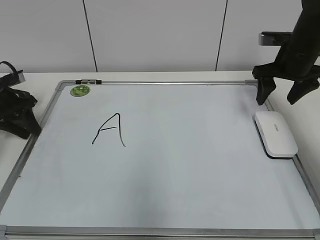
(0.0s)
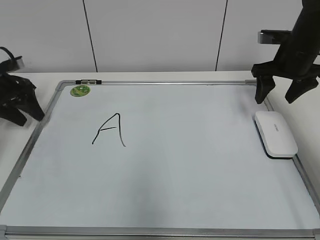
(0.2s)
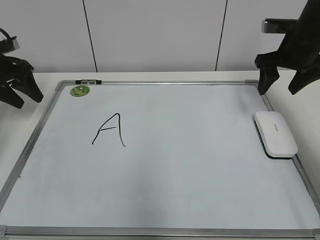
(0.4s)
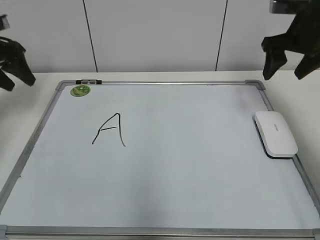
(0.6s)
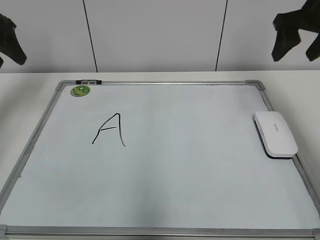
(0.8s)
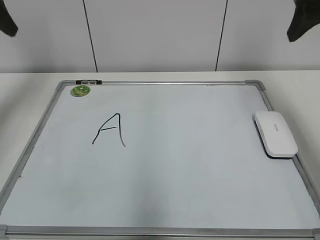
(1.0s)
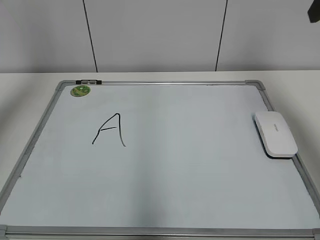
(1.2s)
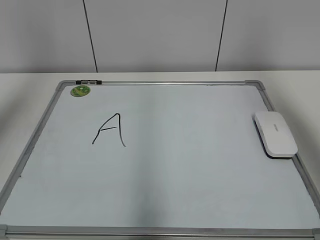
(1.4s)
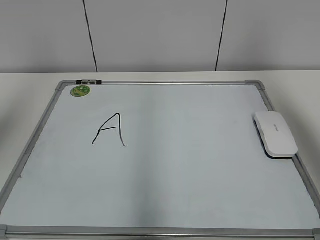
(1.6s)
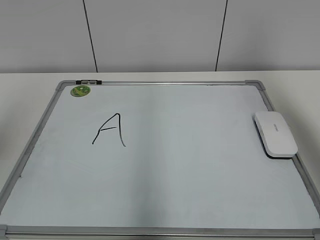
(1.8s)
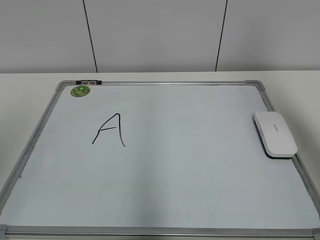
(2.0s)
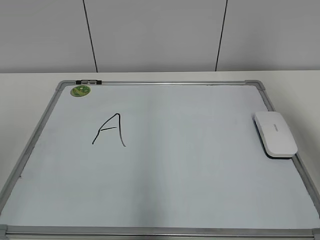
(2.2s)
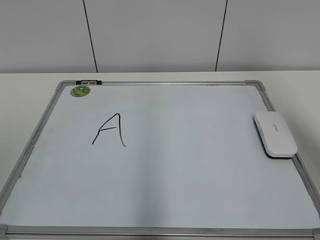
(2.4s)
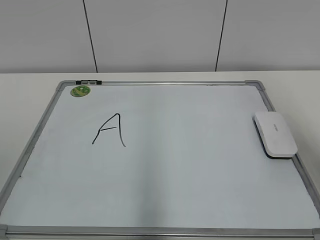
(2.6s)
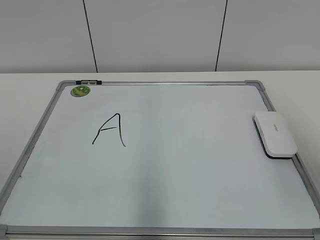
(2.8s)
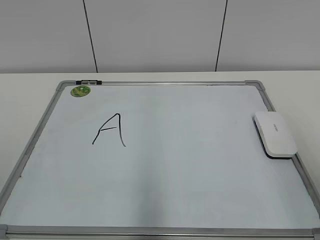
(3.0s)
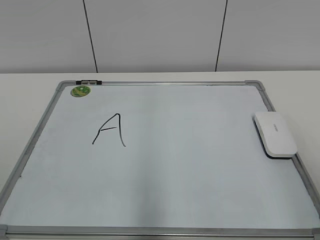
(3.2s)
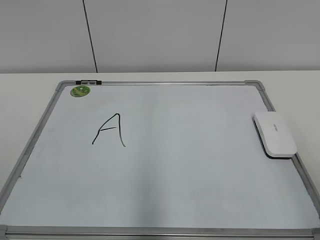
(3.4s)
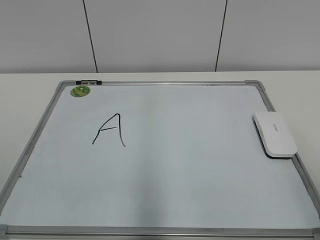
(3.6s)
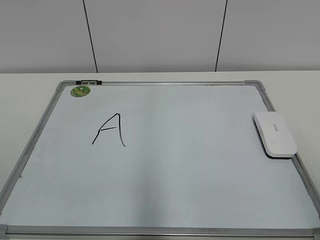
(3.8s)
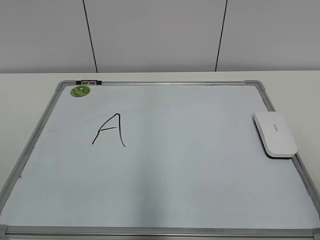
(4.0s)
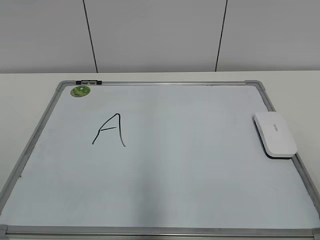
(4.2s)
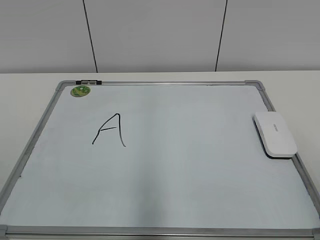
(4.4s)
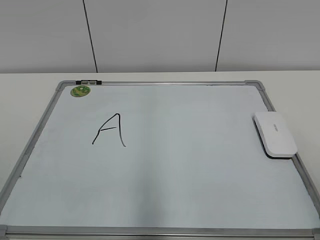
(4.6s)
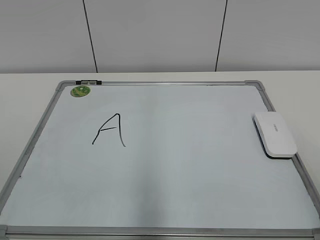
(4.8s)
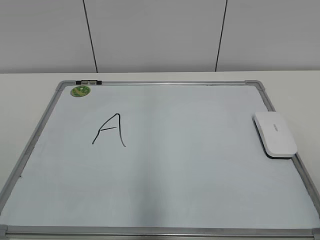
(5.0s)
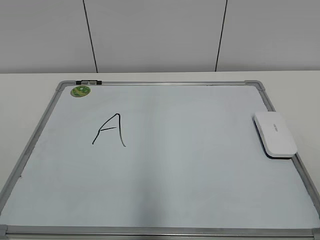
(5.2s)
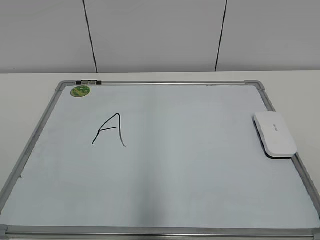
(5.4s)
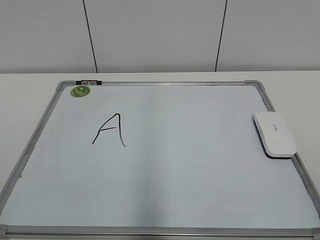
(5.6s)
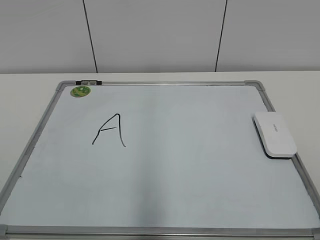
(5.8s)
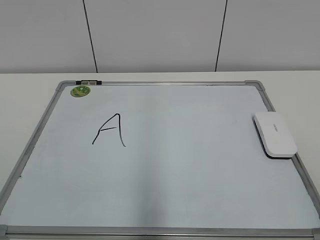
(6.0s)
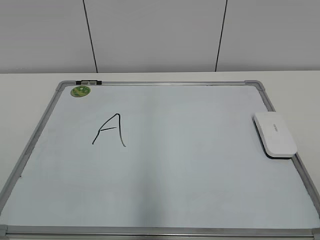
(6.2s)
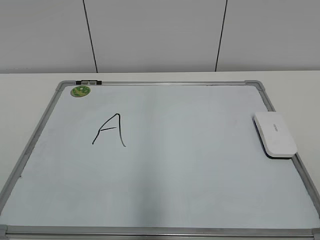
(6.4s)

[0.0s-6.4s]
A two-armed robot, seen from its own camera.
Task of the whole recording: pick up the eraser on the blackboard and erase the letter "a".
0.0s to 1.6s: The grippers both shift upward and backward by roughly 30 cm. The left gripper opens its fingers.
1.6s to 3.2s: Both grippers move backward and downward, some 25 cm.
